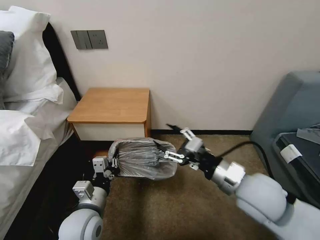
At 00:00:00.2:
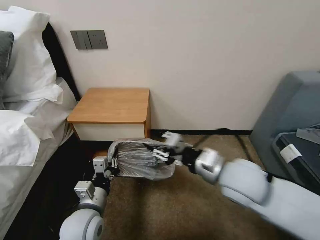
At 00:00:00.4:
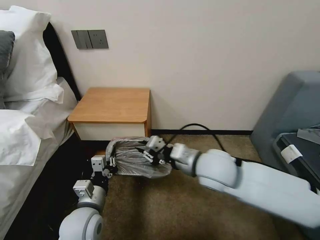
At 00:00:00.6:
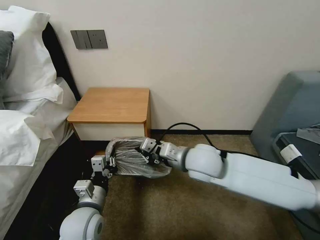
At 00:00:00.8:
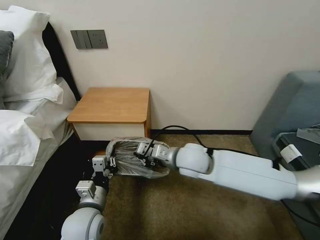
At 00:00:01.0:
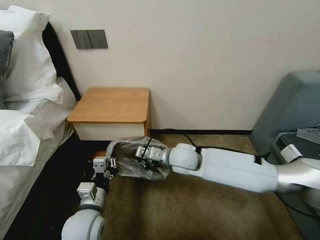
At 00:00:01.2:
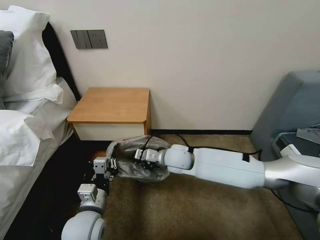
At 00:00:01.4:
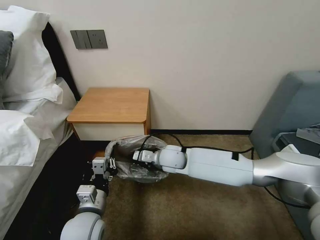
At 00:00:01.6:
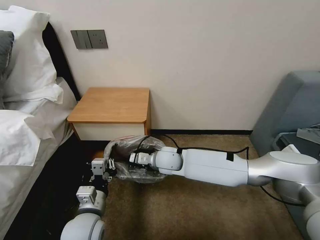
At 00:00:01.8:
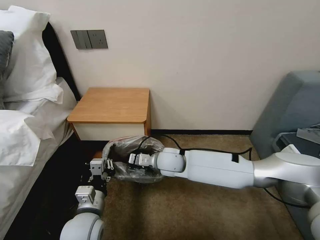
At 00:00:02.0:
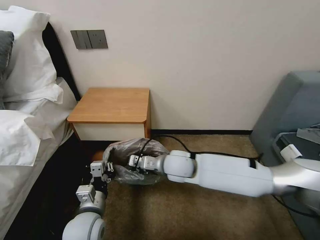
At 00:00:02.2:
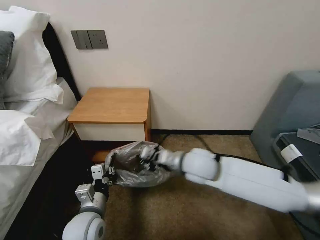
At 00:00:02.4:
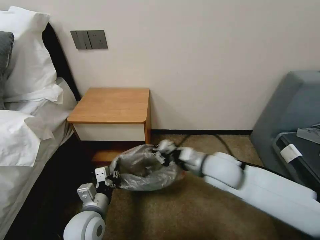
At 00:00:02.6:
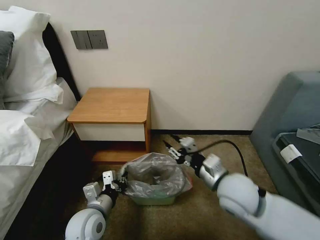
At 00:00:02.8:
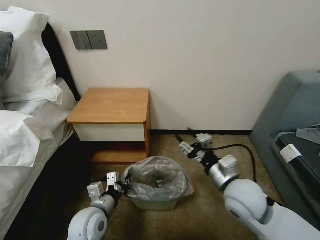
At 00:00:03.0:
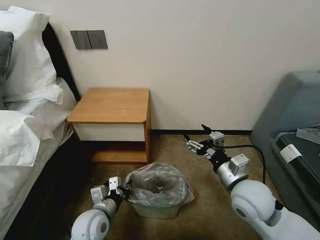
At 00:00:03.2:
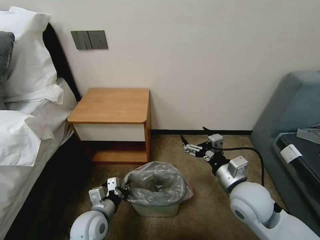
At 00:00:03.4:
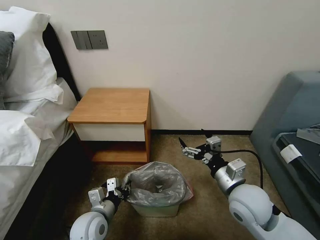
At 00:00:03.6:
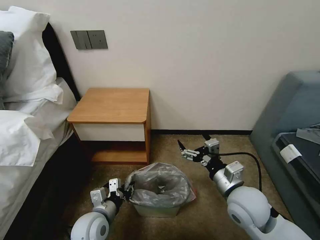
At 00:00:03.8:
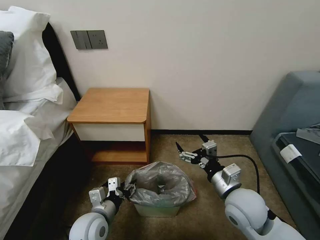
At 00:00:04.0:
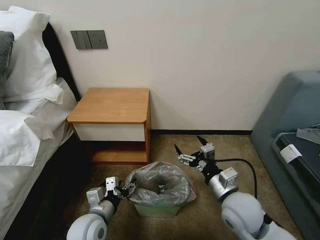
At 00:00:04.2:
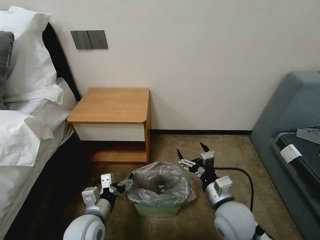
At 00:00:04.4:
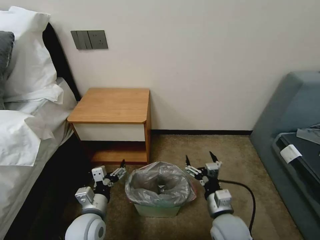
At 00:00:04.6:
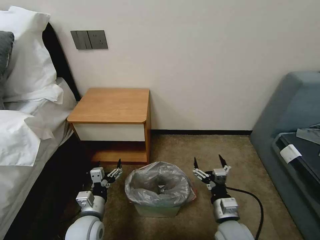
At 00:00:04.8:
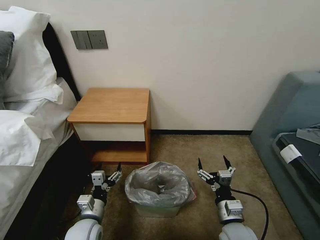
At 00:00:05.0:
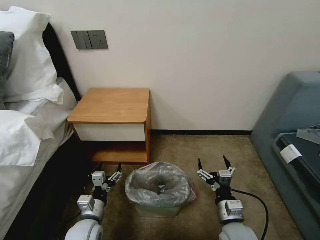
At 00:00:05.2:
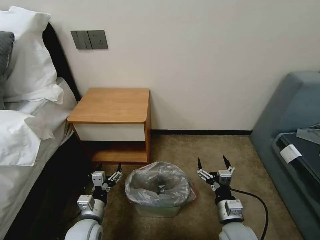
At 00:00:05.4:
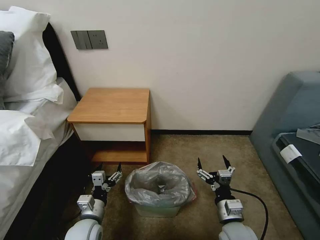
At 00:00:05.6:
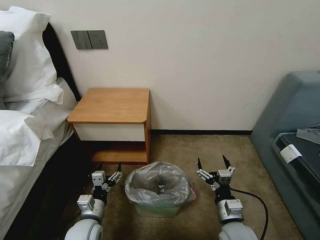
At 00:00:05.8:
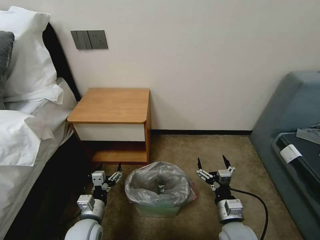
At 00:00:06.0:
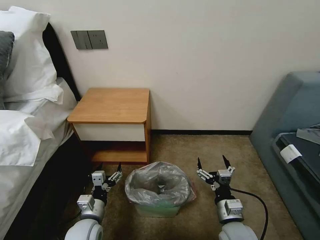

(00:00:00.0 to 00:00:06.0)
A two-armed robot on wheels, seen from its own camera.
Task of the whole recording: Pick up the garbage bag from the table and place it over the trash can.
00:00:00.0 - 00:00:01.6: The right gripper moves to the left, forward and downward, some 30 cm, and closes its fingers.
00:00:01.6 - 00:00:03.0: The right gripper heads to the right and backward, covering some 25 cm, and opens its fingers. The left gripper ends up approximately 5 cm from where it was.
00:00:03.0 - 00:00:04.4: The left gripper opens its fingers. Meanwhile the right gripper shifts about 10 cm downward and backward.
00:00:04.4 - 00:00:06.0: The left gripper shifts about 5 cm downward.
